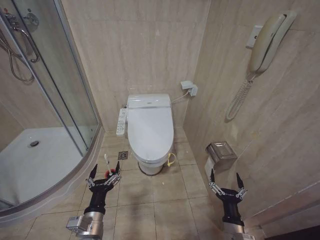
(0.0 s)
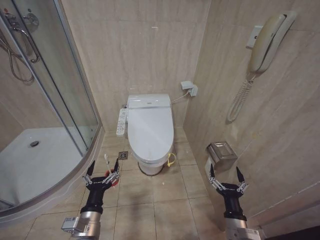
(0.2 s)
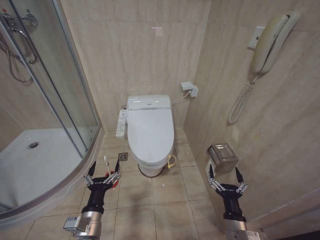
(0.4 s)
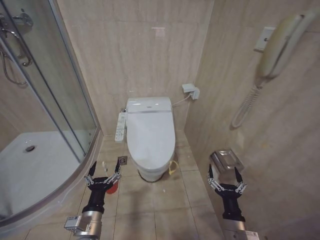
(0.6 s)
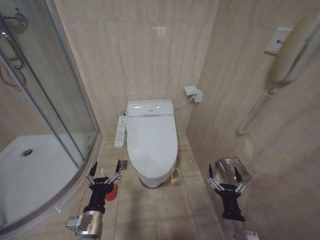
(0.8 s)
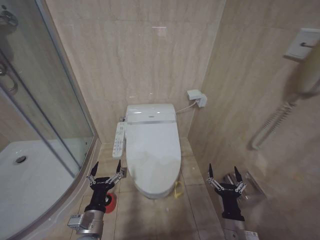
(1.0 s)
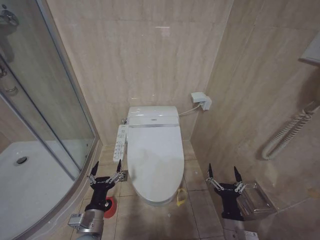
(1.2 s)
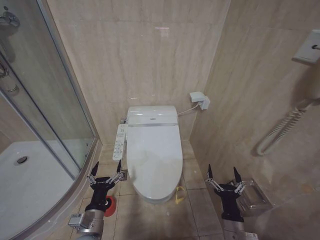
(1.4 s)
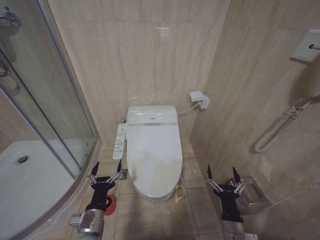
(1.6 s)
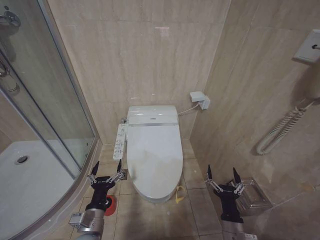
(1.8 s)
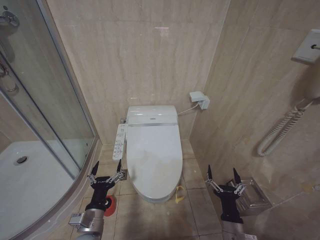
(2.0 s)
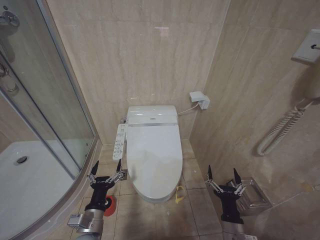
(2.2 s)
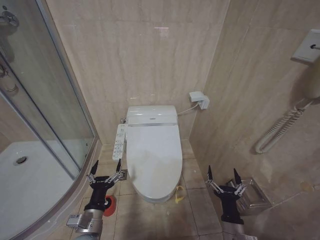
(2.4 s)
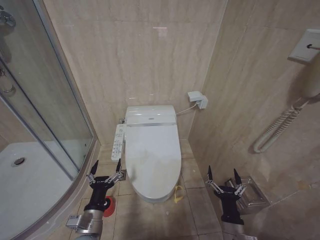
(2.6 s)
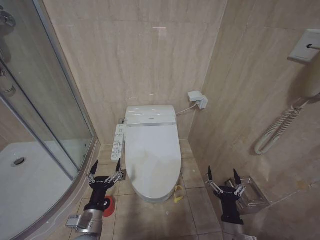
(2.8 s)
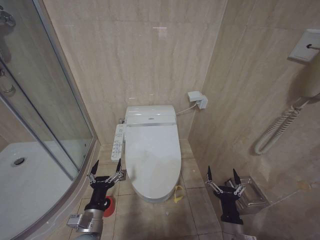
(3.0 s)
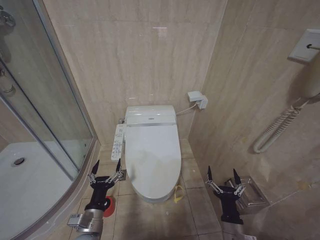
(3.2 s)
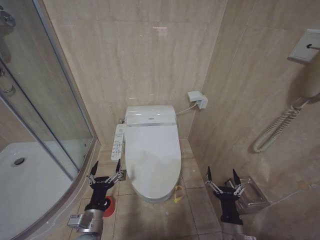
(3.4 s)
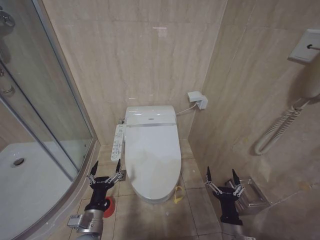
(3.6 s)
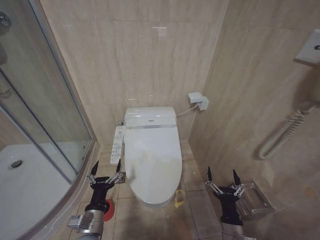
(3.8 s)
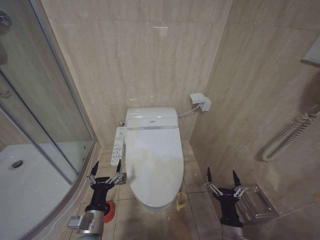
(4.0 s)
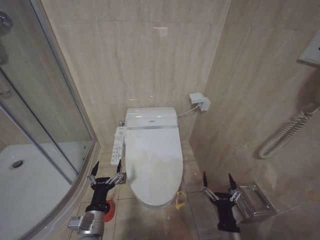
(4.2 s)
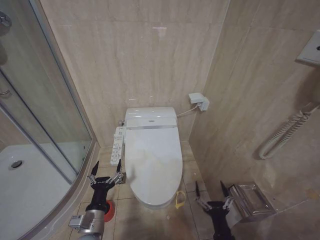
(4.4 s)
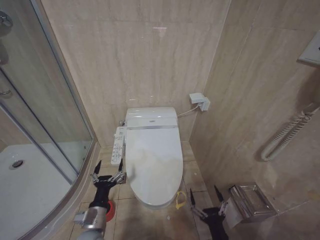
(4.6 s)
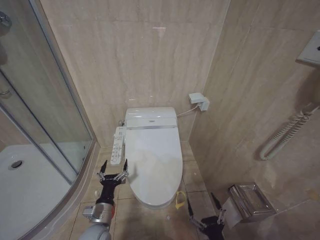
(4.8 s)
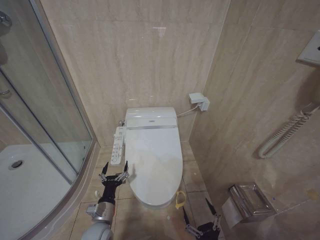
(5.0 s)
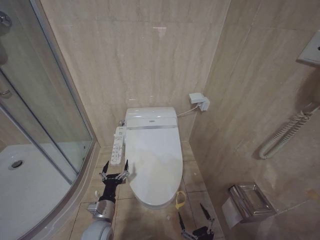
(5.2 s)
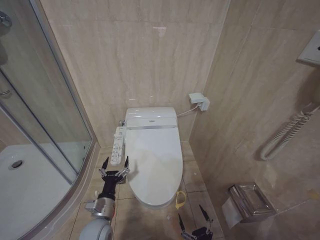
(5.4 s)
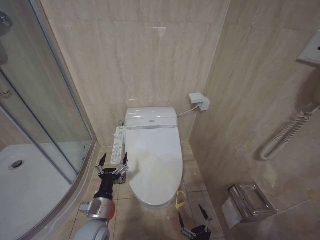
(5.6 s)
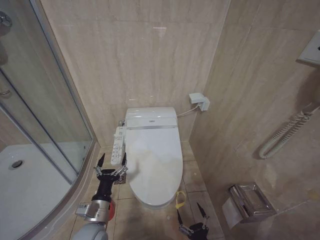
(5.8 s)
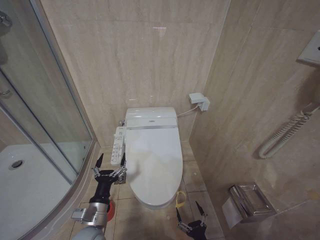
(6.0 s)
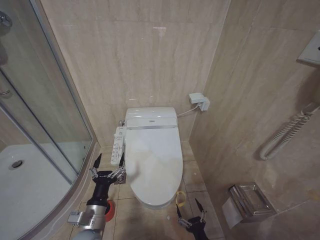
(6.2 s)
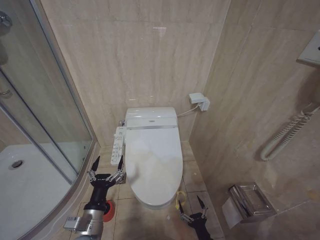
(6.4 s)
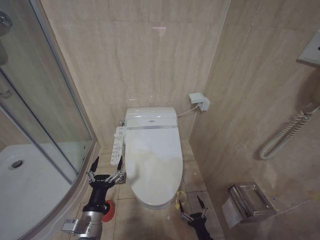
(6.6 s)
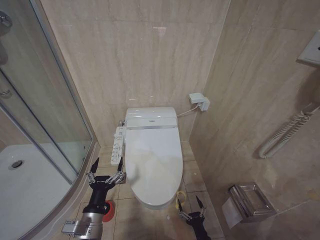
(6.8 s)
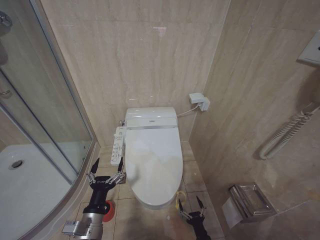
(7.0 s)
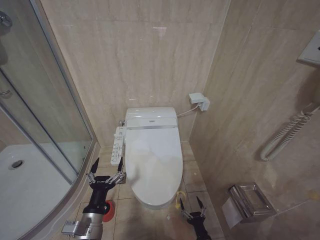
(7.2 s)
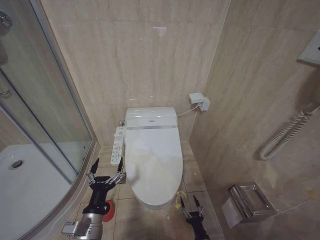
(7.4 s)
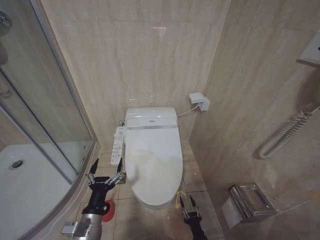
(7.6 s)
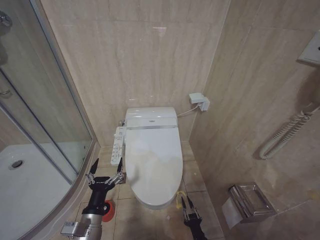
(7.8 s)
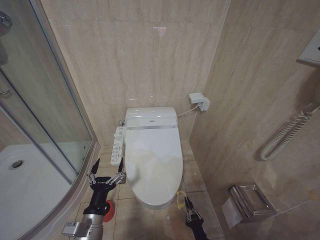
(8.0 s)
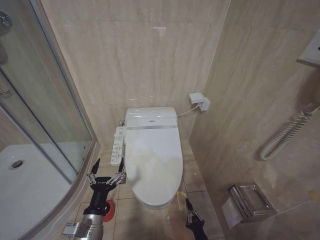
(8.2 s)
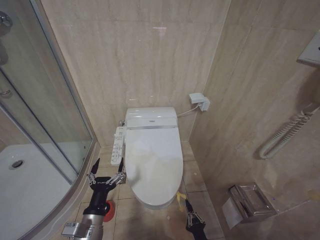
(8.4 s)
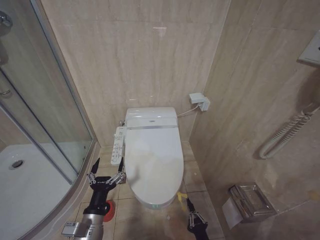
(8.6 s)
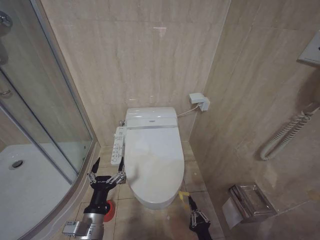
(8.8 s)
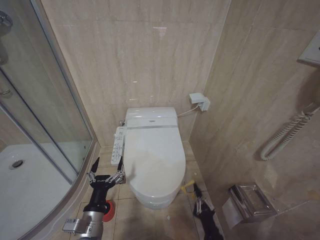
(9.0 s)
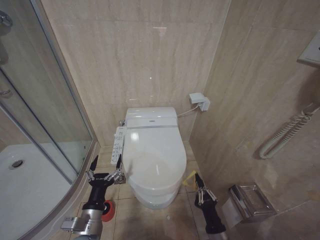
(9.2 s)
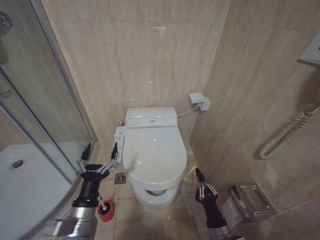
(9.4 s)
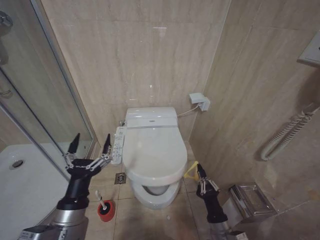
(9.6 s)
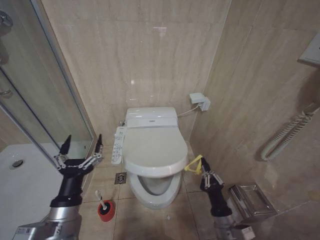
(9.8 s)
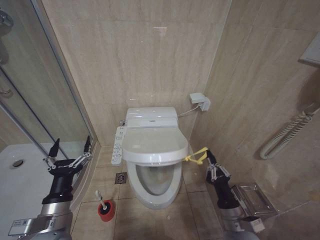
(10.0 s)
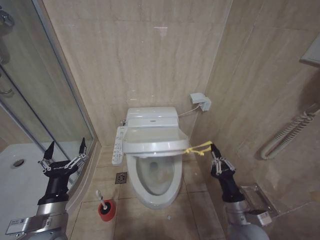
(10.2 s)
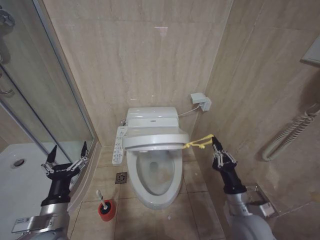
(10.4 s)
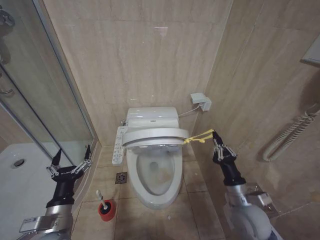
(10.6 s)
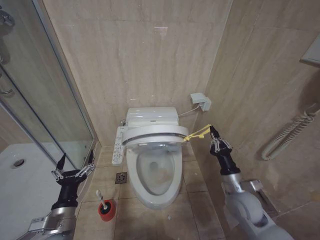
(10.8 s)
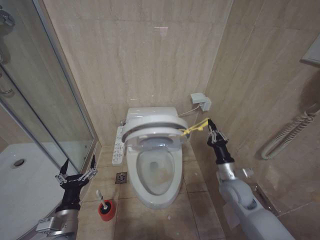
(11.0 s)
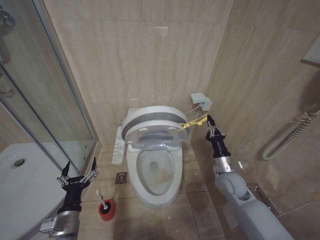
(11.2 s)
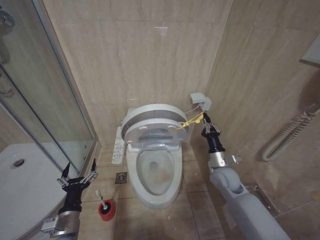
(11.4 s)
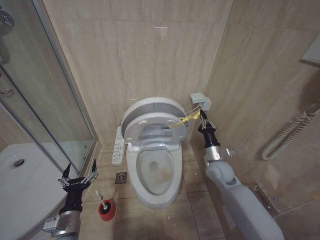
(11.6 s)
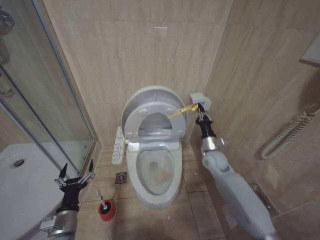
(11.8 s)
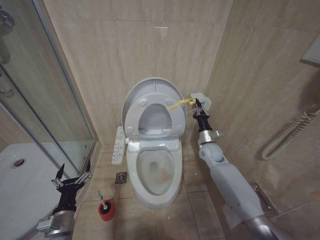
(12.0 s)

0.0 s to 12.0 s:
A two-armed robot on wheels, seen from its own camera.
Task of the whole recording: Open the toilet lid, clean the toilet bowl with a toilet brush, close the toilet lid, and flush.
1.6 to 3.0 s: The two grippers keep their place.
3.0 to 4.4 s: The grippers make only small movements.
4.4 to 6.0 s: The right gripper moves downward, about 10 cm.
6.0 to 7.6 s: The right gripper moves downward and forward, approximately 10 cm.
7.6 to 9.0 s: The right gripper heads upward, covering roughly 10 cm, and closes up.
9.0 to 10.4 s: The right gripper shifts approximately 20 cm upward and forward. Meanwhile the left gripper is displaced to the left and upward by some 10 cm.
10.4 to 12.0 s: The right gripper shifts approximately 25 cm forward; the left gripper heads downward, covering some 10 cm.

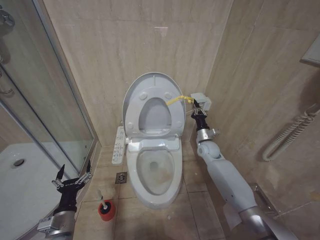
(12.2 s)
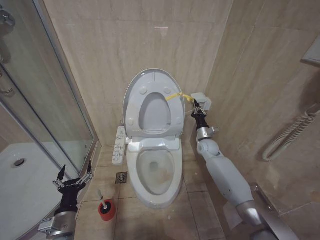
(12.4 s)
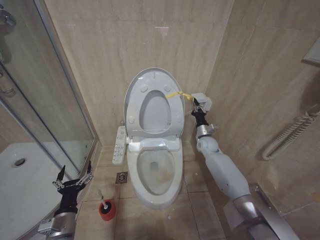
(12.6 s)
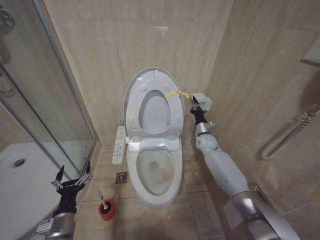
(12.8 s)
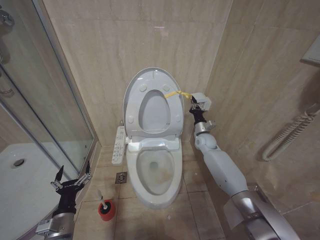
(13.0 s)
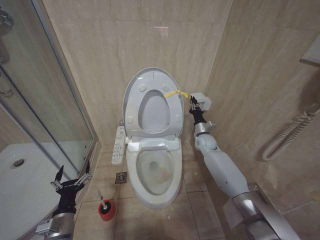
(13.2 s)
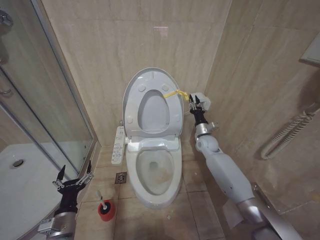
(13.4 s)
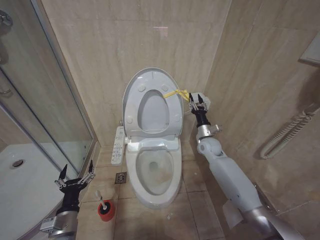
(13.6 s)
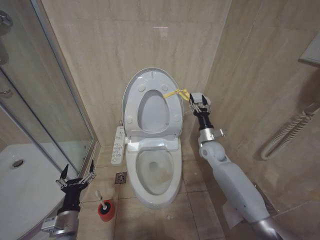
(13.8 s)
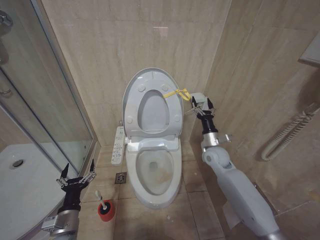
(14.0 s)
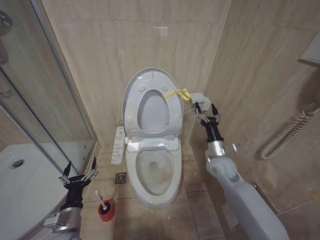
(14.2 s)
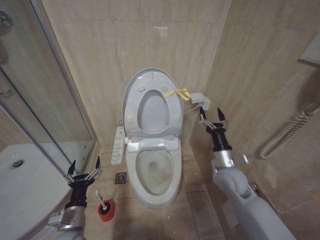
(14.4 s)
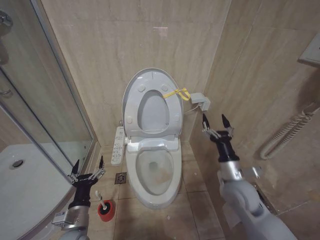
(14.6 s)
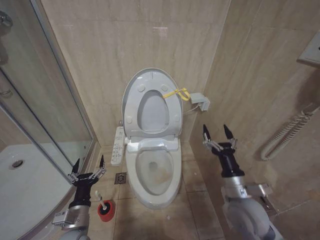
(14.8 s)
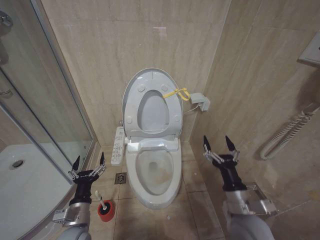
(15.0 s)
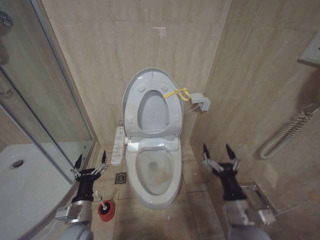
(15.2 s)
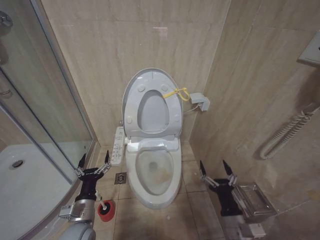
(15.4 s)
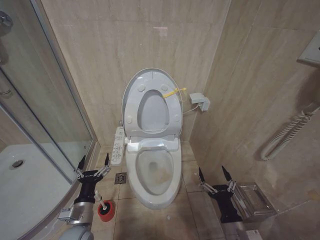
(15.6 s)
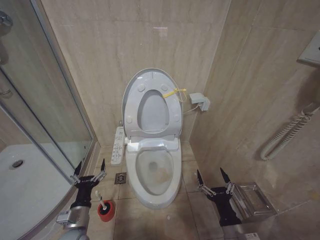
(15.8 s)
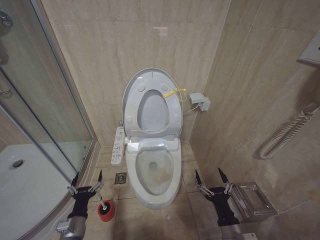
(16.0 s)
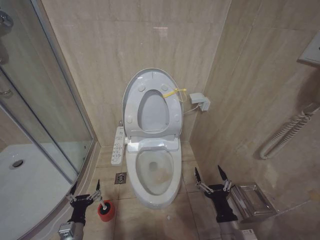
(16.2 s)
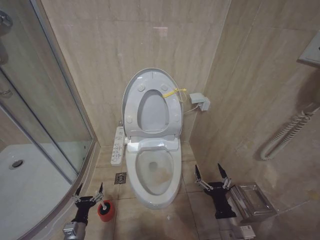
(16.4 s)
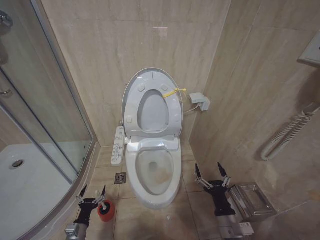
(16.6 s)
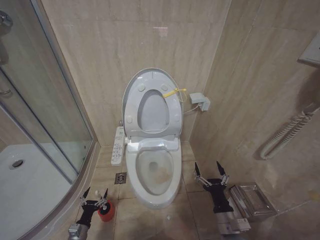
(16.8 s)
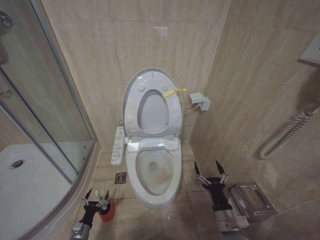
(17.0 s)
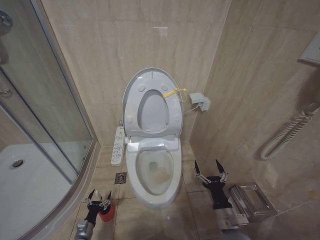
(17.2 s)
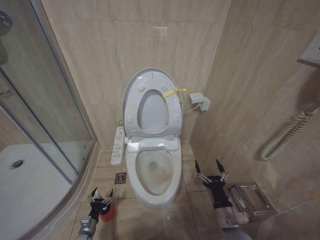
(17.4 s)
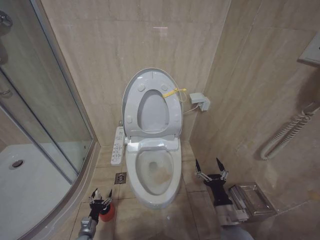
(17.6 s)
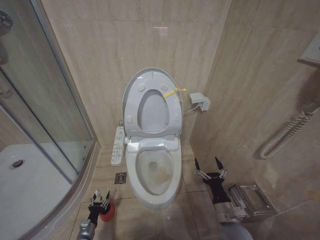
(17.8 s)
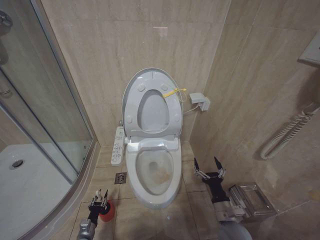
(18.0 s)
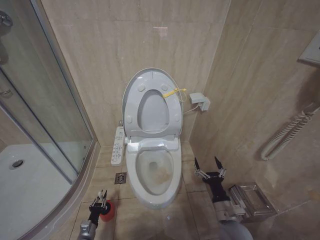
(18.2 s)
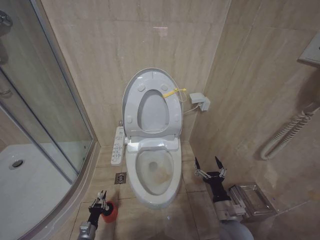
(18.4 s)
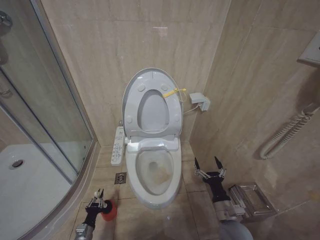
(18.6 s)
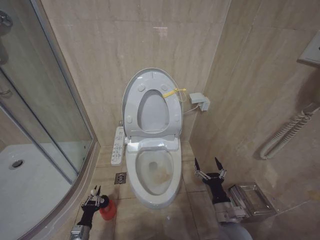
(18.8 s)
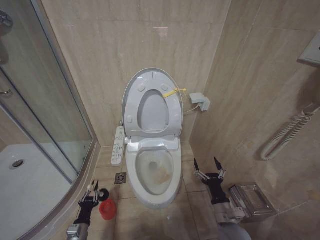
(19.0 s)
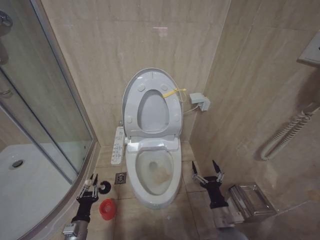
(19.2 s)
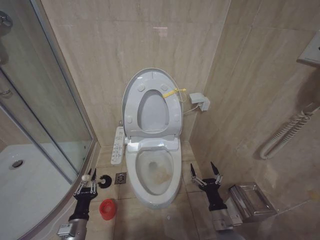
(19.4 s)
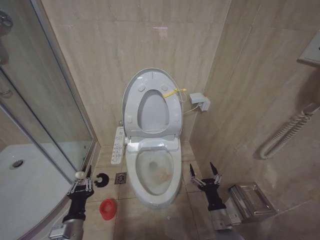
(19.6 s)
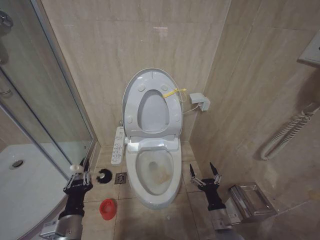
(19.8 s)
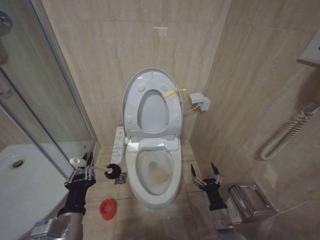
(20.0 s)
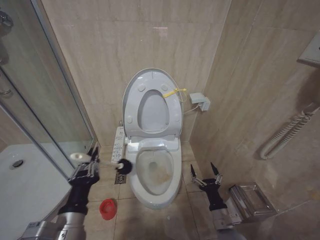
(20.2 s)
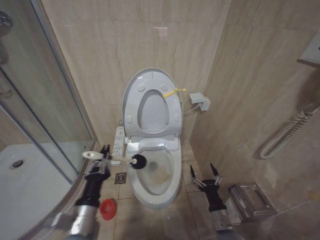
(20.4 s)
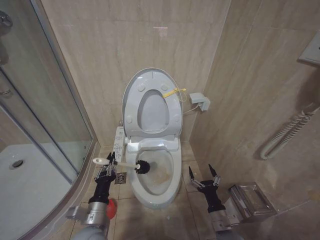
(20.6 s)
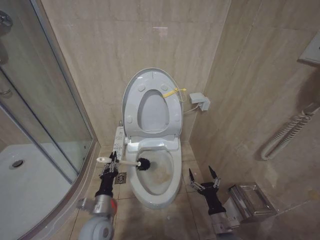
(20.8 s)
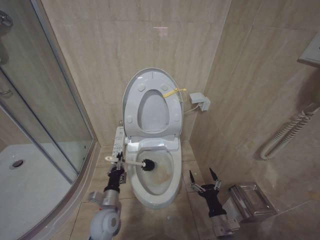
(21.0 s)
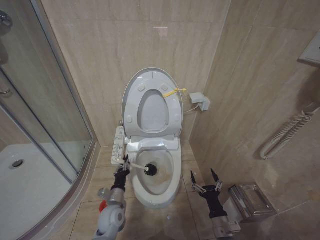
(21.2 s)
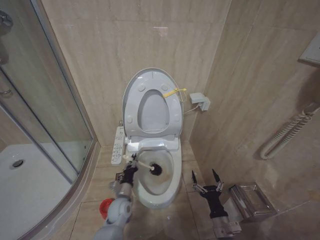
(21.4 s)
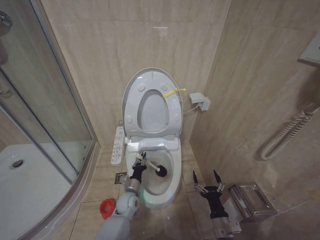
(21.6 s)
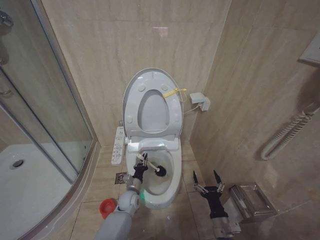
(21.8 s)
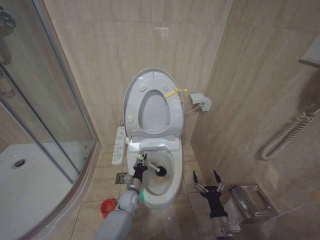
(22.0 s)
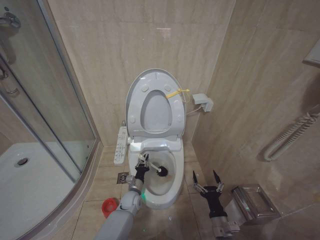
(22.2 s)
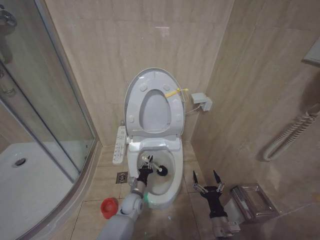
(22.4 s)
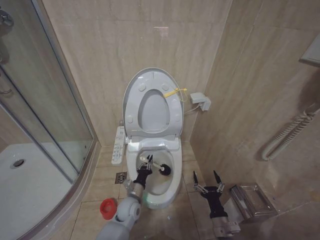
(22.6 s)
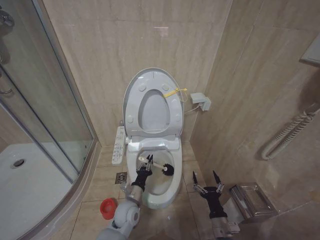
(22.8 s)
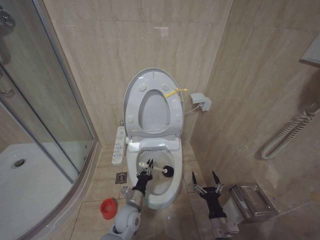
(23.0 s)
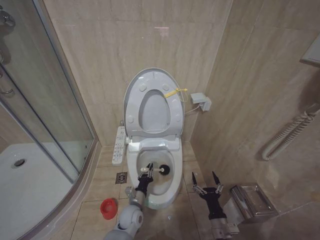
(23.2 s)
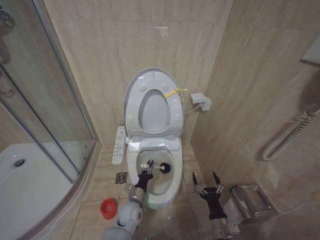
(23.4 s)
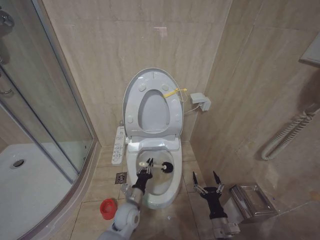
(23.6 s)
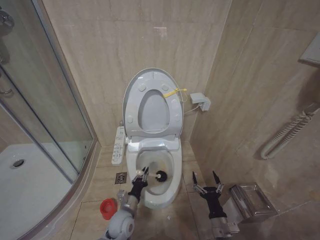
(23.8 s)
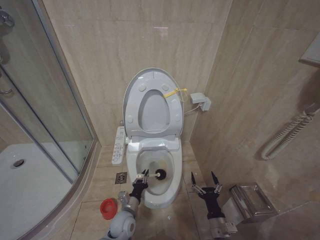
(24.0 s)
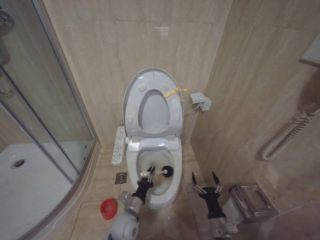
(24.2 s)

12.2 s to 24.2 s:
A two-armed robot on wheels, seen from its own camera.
Task of the whole recording: Open the toilet lid, clean the toilet bowl with a toilet brush, close the toilet lid, and flush.
12.2 to 13.8 s: The right gripper opens its fingers.
13.8 to 15.2 s: The right gripper is displaced backward by approximately 30 cm, and opens up.
15.2 to 16.6 s: The left gripper is displaced downward and to the left by roughly 20 cm; the right gripper shifts about 10 cm downward.
16.6 to 18.2 s: The left gripper is displaced downward by roughly 10 cm, and closes its fingers; the right gripper shifts roughly 5 cm forward.
18.2 to 19.8 s: The left gripper heads upward, covering approximately 30 cm.
19.8 to 21.2 s: The left gripper heads forward, downward and to the right, covering approximately 20 cm.
21.2 to 22.6 s: The left gripper is displaced to the right and forward by about 10 cm.
22.6 to 24.2 s: The left gripper goes roughly 5 cm backward.
